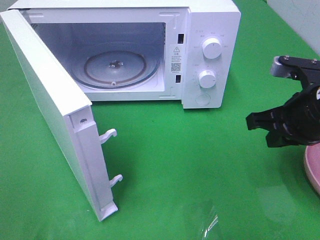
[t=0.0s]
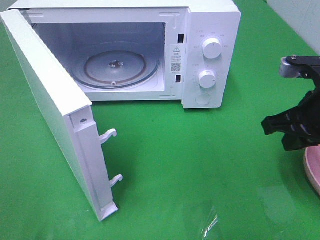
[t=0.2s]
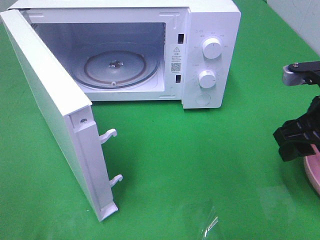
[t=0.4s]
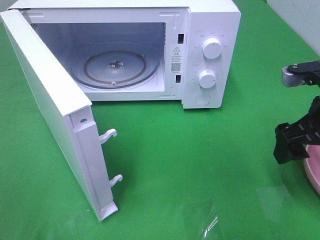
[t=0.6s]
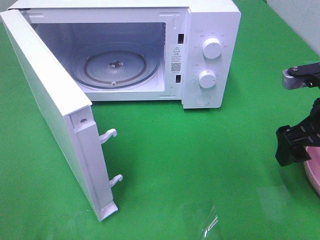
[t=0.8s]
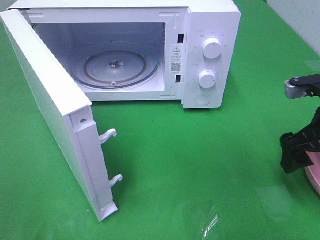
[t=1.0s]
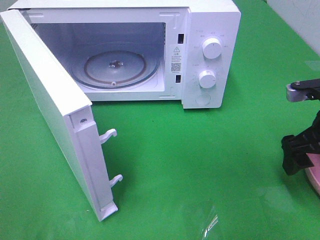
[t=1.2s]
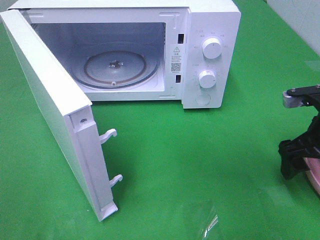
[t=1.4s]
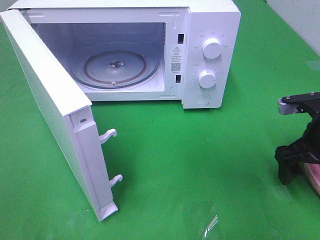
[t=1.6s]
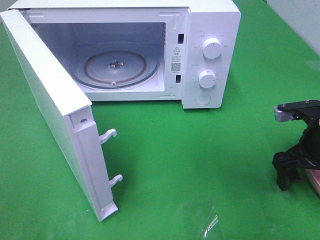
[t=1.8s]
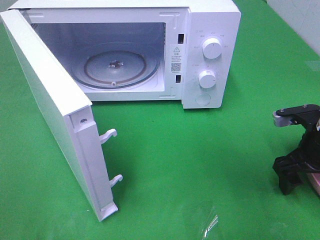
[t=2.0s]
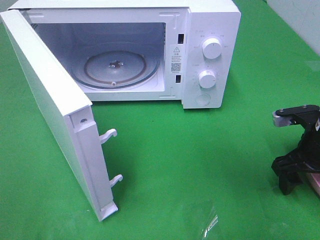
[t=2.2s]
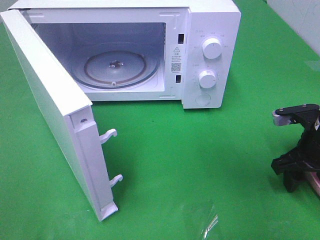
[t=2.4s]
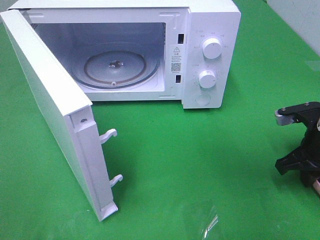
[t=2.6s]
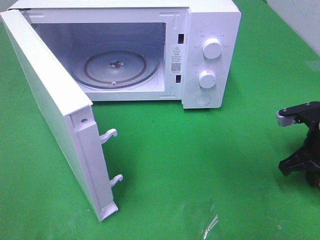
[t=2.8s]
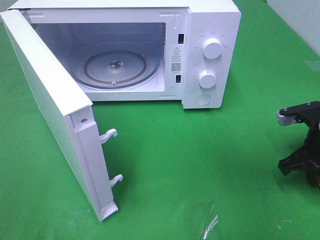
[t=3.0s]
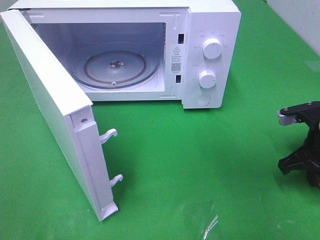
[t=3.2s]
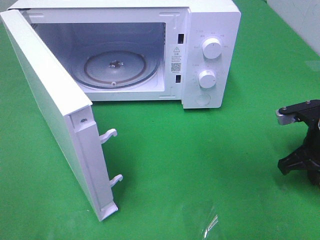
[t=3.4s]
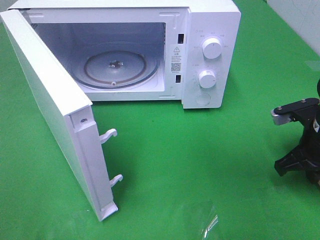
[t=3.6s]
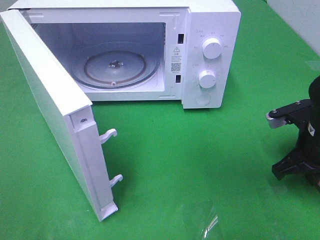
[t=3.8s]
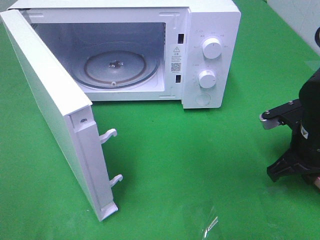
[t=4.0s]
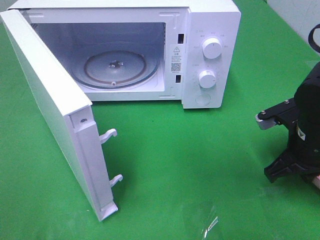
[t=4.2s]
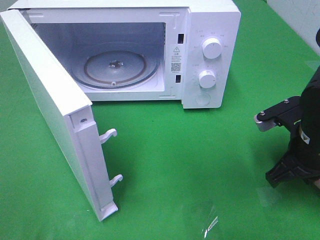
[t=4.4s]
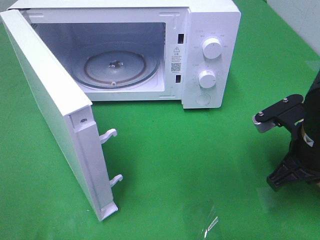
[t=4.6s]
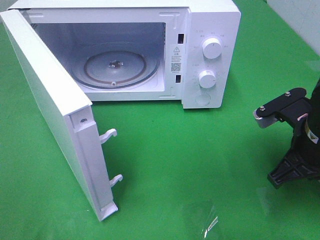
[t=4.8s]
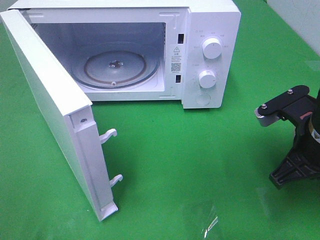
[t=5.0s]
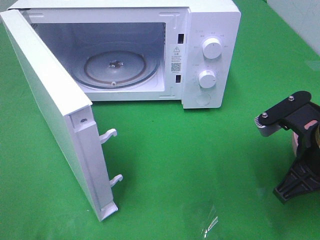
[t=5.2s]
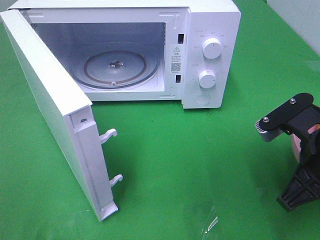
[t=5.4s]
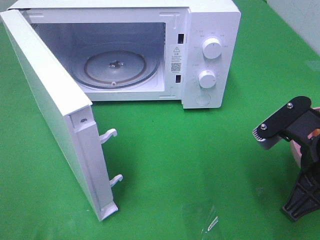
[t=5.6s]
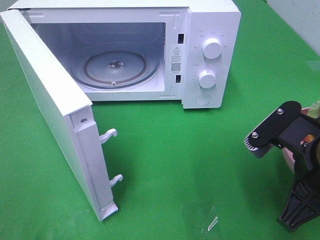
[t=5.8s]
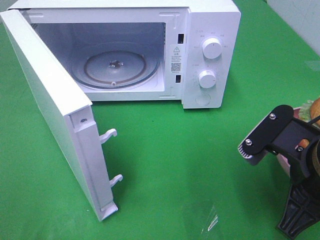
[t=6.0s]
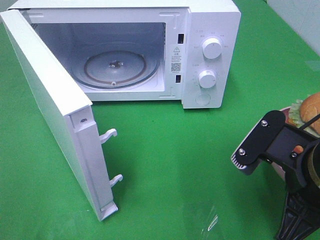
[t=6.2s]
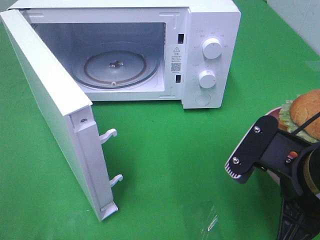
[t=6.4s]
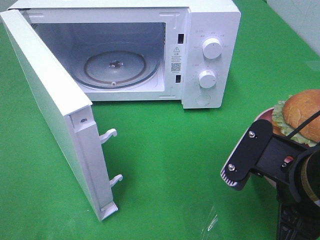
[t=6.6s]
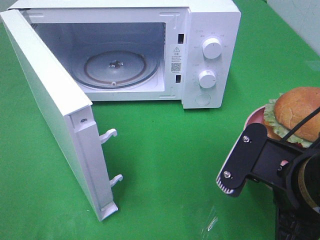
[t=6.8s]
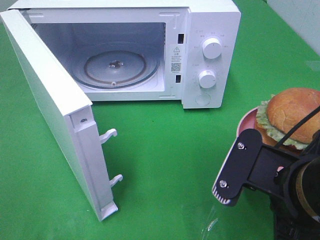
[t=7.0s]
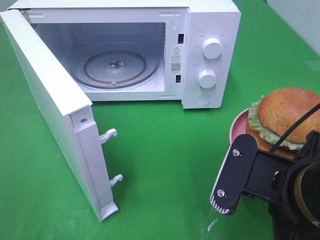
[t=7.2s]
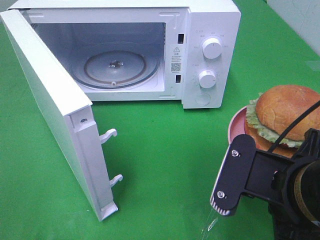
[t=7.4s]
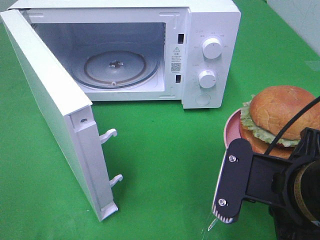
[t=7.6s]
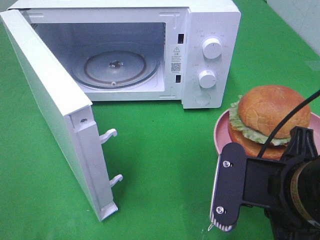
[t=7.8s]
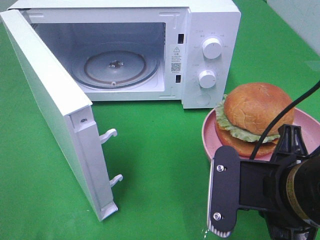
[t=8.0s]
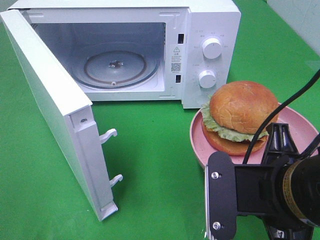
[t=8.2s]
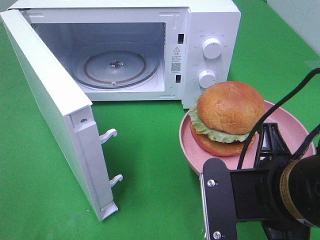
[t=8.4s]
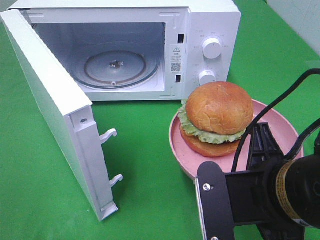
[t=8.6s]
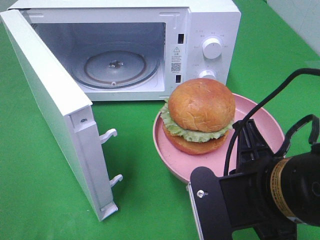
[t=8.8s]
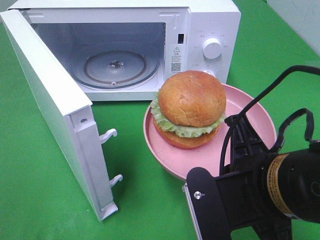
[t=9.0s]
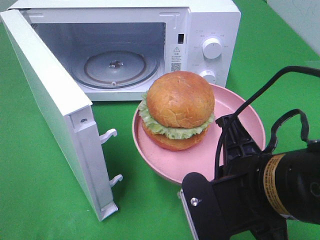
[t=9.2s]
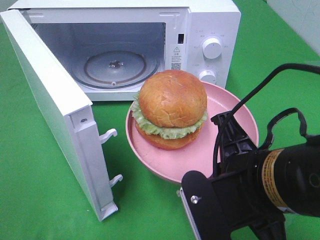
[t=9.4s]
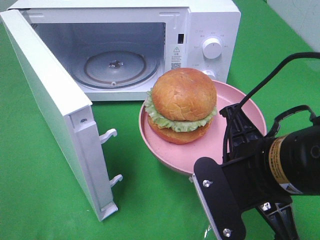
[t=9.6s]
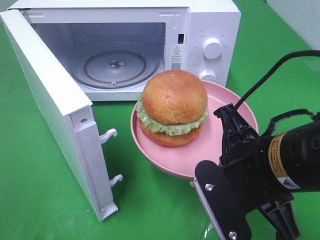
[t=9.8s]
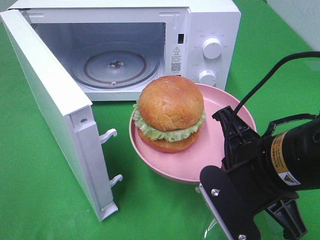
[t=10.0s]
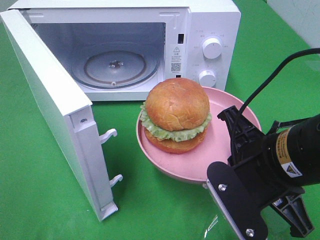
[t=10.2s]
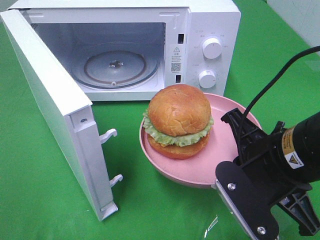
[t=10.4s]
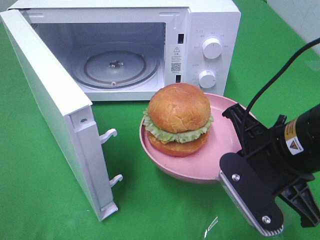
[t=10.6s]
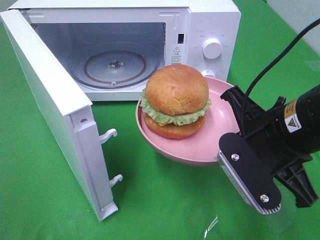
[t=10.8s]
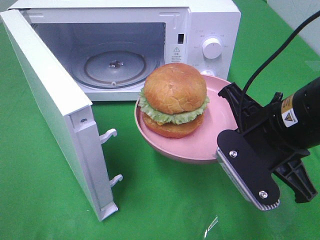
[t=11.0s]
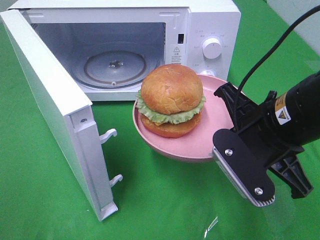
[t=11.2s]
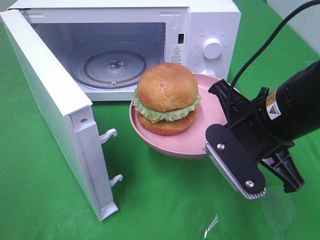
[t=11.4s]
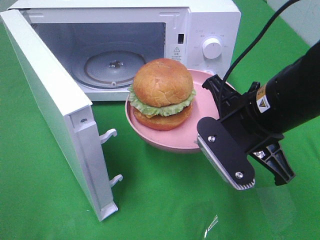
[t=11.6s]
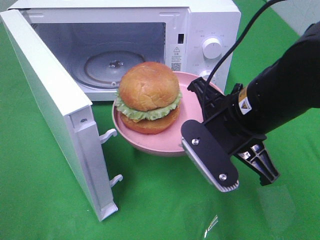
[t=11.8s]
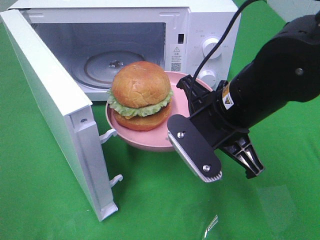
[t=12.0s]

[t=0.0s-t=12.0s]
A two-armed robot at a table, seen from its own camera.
Task of the whole recording: Heat the burger.
Step, t=0.0s to t=3.6s: Right hand: grab the plate with the hamburger.
t=0.0s to t=1.6s: The right gripper goes approximately 5 cm downward, and opens up.
t=1.6s to t=3.0s: The right gripper closes.
t=3.0s to t=4.4s: The right gripper goes some 5 cm to the left.
t=4.4s to t=6.0s: The right gripper goes roughly 10 cm backward, upward and to the left.
t=6.0s to t=7.6s: The right gripper changes place by about 5 cm.
t=9.0s to t=10.4s: The right gripper shifts by about 5 cm.
t=10.4s to t=12.0s: The right gripper moves forward and to the left, approximately 10 cm.

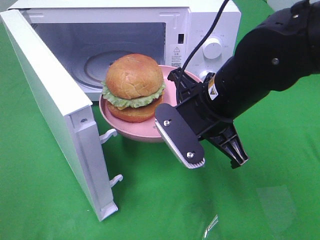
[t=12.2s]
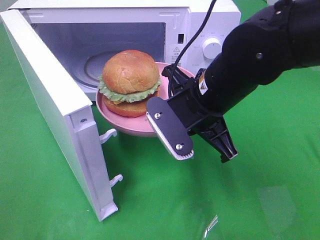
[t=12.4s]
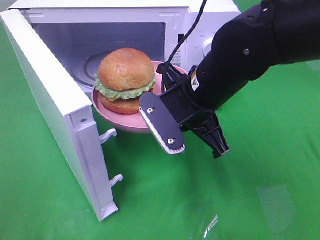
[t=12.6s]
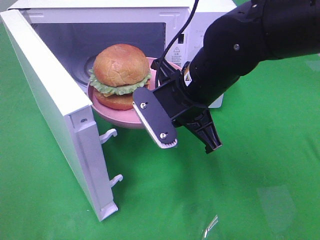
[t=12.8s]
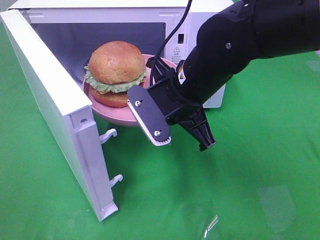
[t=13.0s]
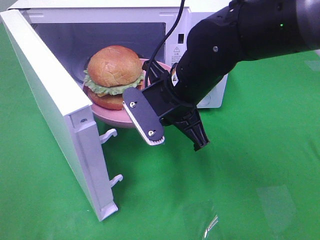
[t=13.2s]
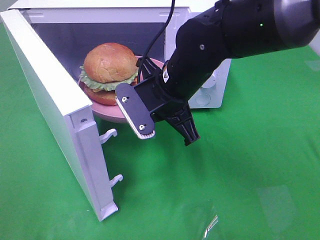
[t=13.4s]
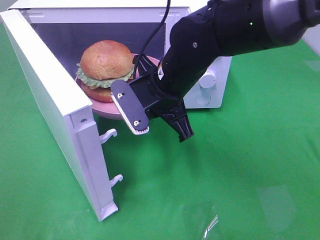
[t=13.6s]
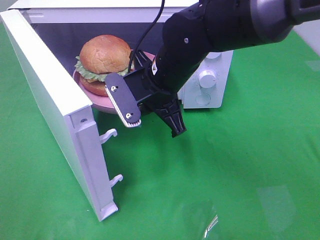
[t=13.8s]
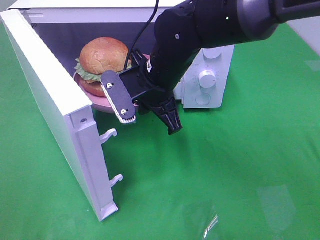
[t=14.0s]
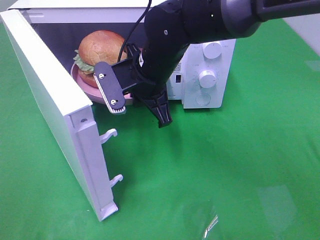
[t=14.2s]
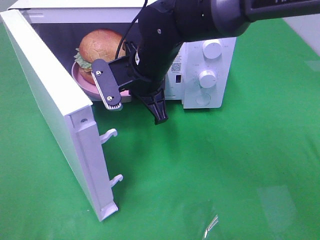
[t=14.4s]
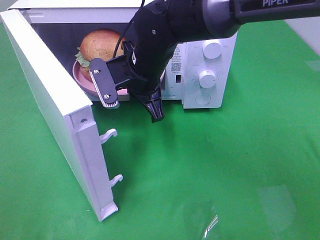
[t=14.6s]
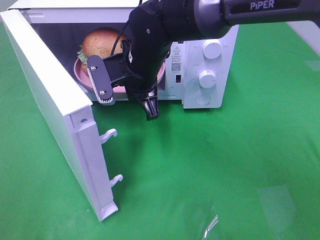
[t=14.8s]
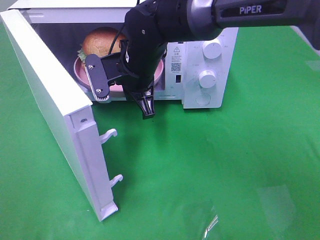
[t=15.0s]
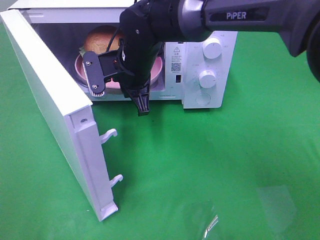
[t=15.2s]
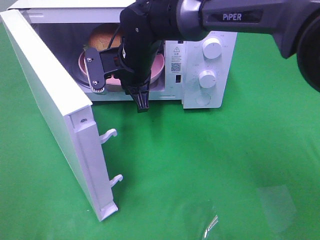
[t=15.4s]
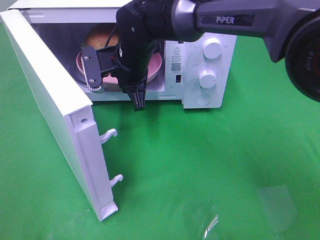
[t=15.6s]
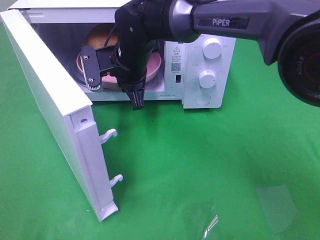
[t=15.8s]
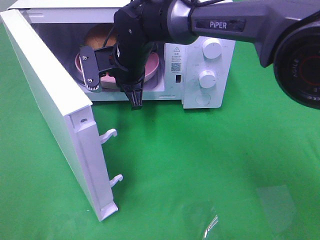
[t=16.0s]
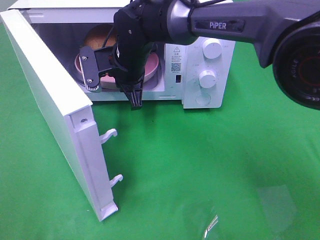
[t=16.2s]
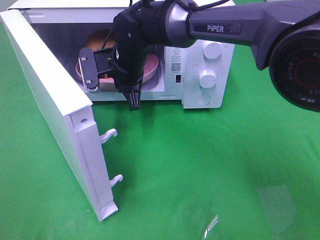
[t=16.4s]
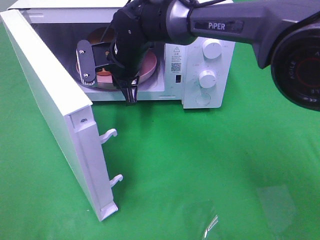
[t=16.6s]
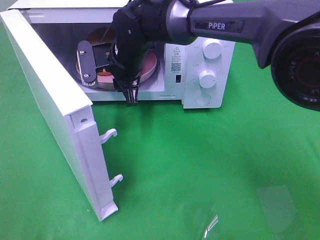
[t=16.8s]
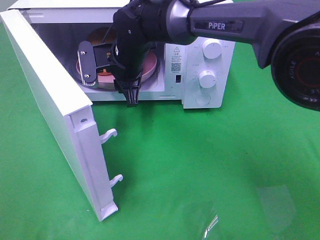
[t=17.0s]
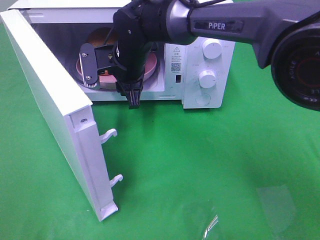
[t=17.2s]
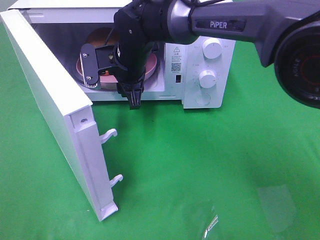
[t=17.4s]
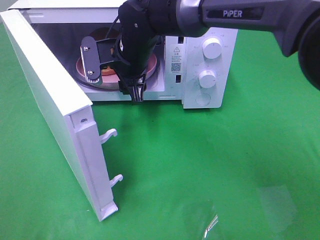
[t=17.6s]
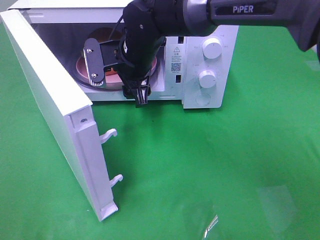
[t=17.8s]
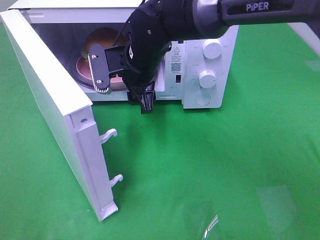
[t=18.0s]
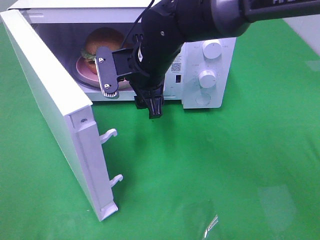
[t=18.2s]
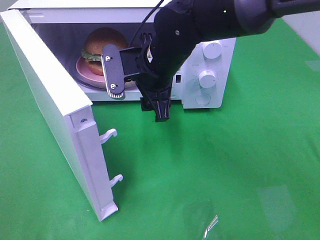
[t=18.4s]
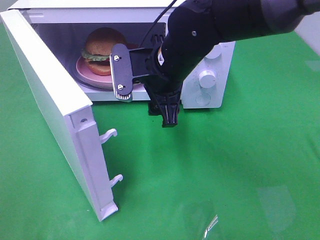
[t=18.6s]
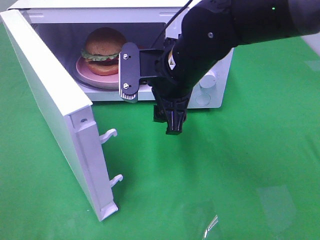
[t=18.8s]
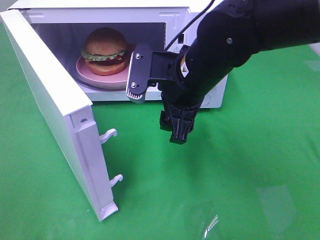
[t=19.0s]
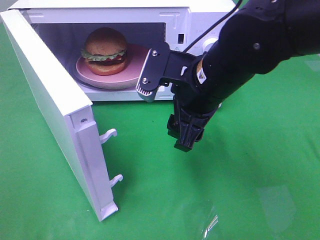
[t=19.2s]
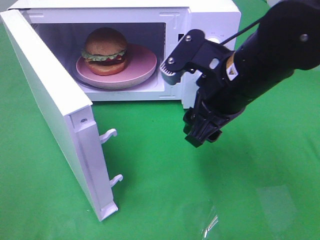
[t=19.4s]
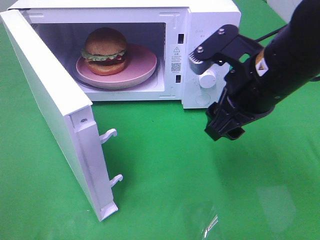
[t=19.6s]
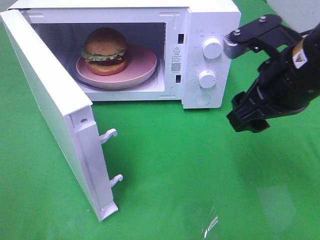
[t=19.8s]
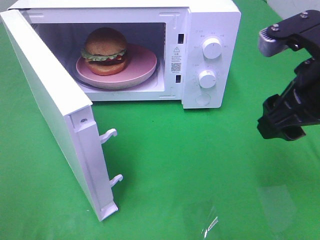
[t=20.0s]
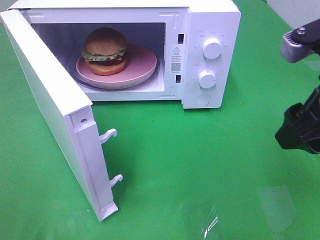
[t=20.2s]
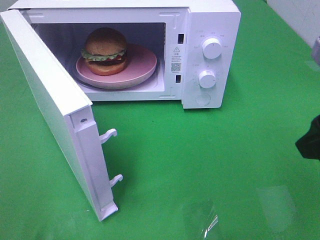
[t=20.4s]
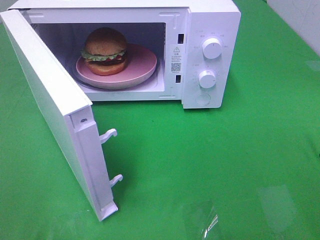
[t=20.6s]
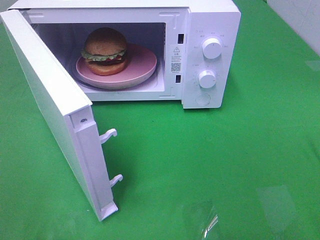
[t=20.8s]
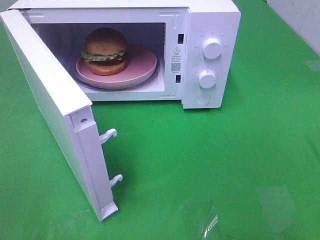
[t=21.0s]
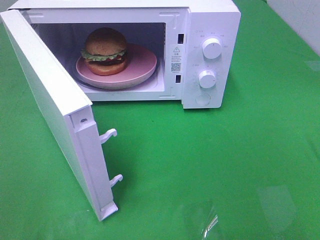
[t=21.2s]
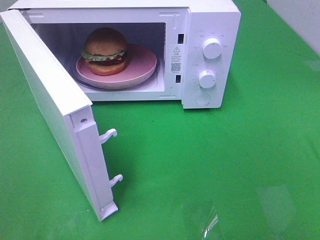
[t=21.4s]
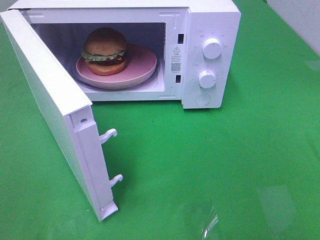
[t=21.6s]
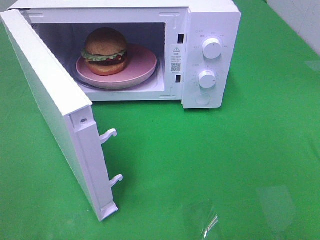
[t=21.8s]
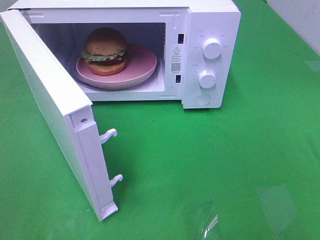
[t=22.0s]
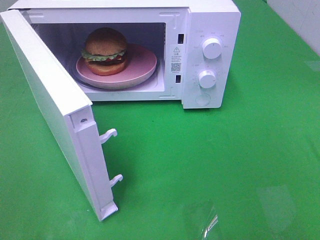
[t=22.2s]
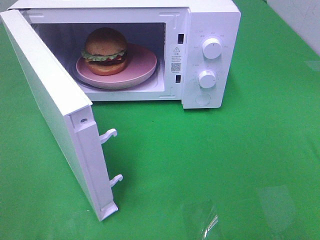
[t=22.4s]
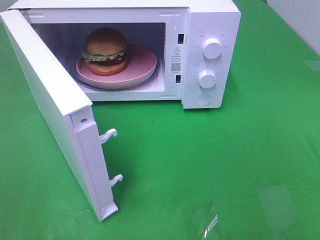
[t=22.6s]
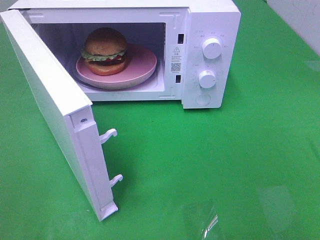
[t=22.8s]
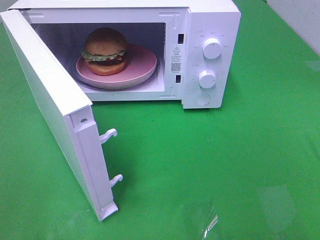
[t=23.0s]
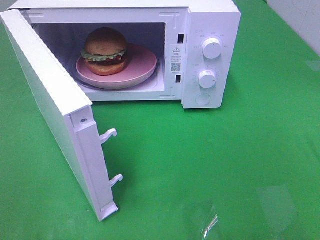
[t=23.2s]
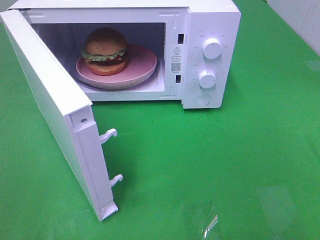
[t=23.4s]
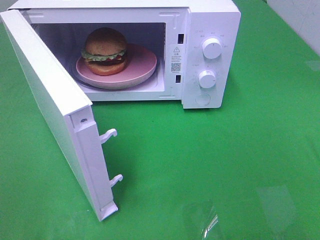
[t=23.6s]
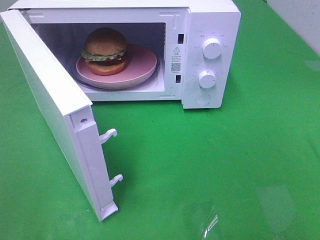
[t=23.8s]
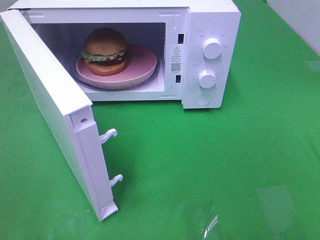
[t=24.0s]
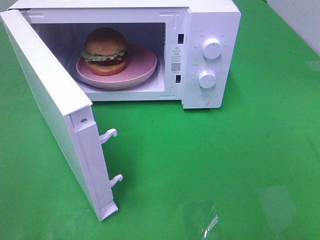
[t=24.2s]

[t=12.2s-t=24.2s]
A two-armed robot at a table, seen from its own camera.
Task of the whole recording: Heat the burger.
Step, t=12.2s to t=17.8s: Right hand: place the plate in the microwave.
t=12.2s to t=13.8s: The right gripper shifts about 10 cm forward and to the left.
t=13.8s to t=15.2s: The right gripper shifts about 5 cm forward.
t=15.2s to t=16.6s: The grippers stay close to where they were, moving slightly.
t=16.6s to t=18.2s: The right gripper travels backward by roughly 5 cm, and opens its fingers.
t=18.2s to t=19.8s: The right gripper shifts about 20 cm to the right and backward.
t=19.8s to t=21.2s: The right gripper goes roughly 20 cm backward and to the right.
t=22.6s to t=24.2s: The two grippers keep their place.
